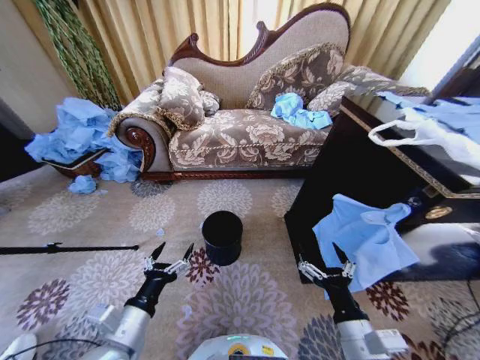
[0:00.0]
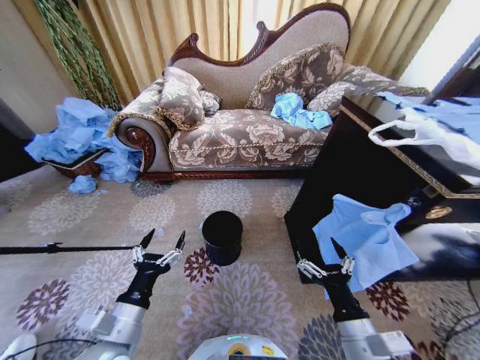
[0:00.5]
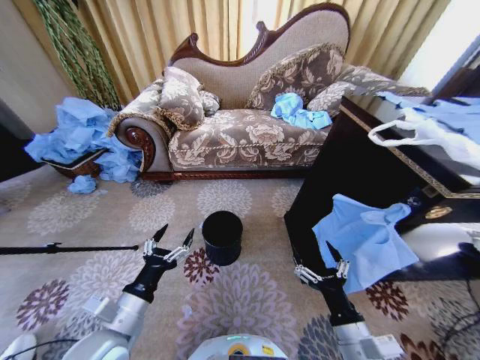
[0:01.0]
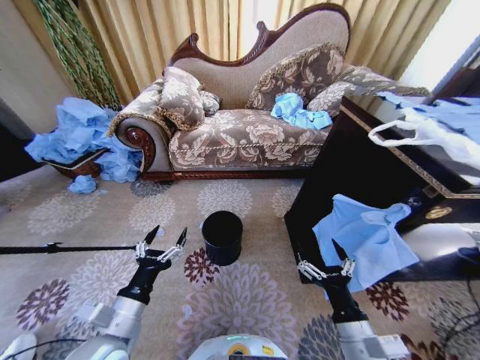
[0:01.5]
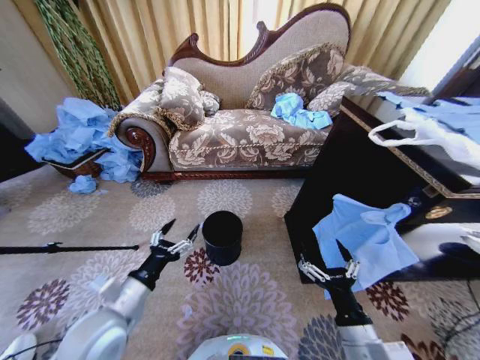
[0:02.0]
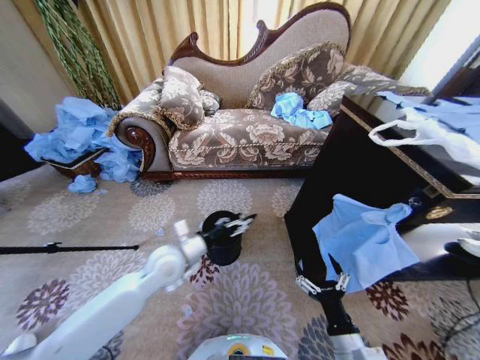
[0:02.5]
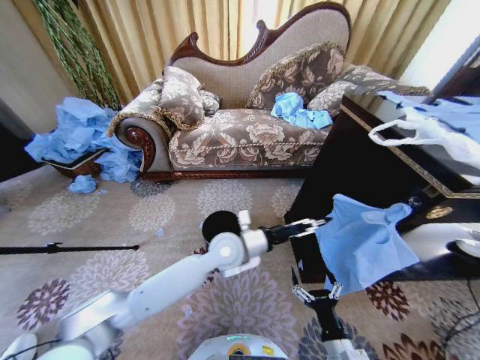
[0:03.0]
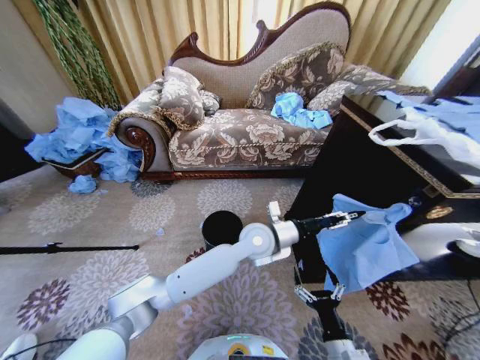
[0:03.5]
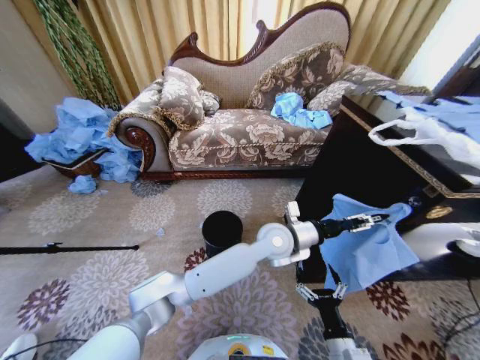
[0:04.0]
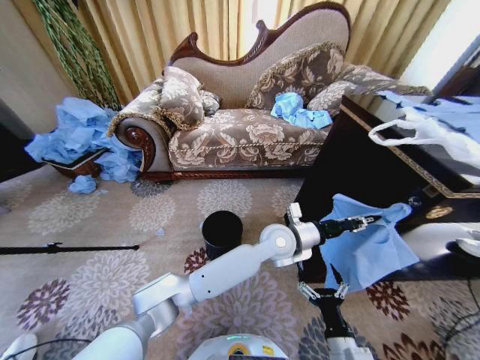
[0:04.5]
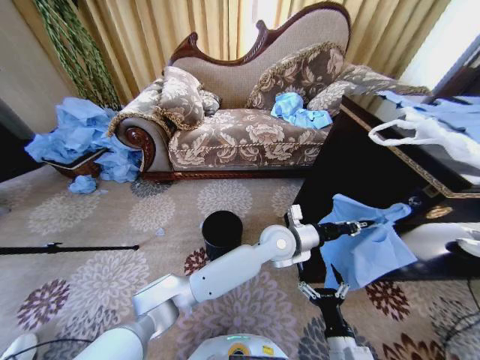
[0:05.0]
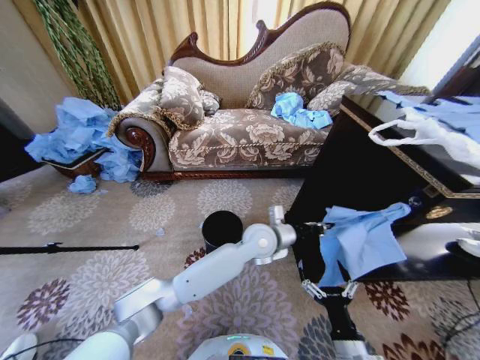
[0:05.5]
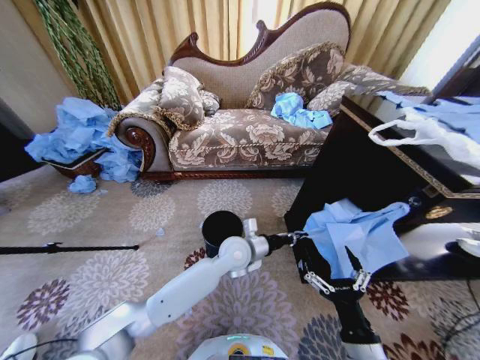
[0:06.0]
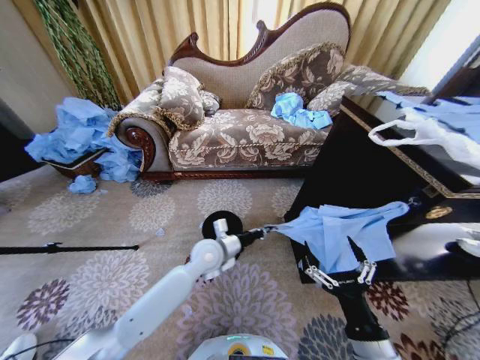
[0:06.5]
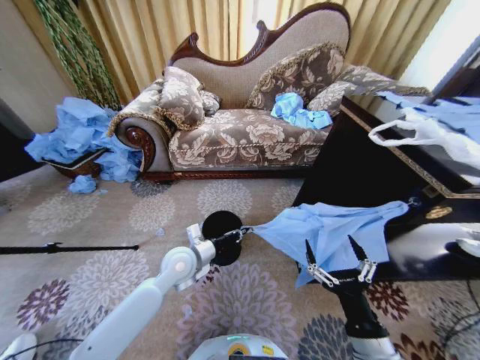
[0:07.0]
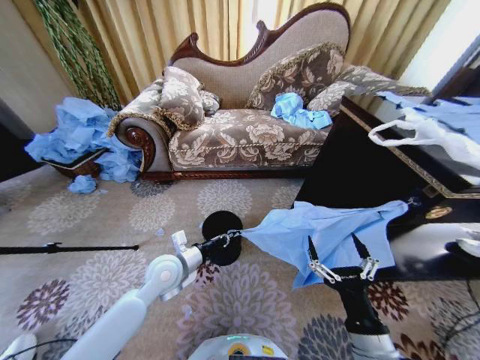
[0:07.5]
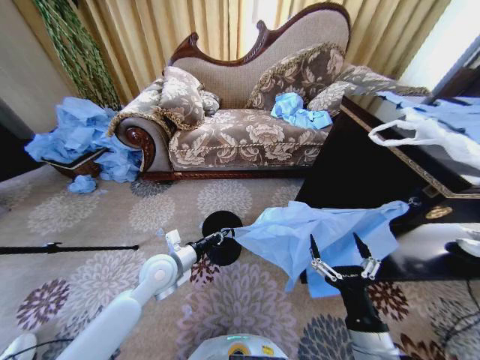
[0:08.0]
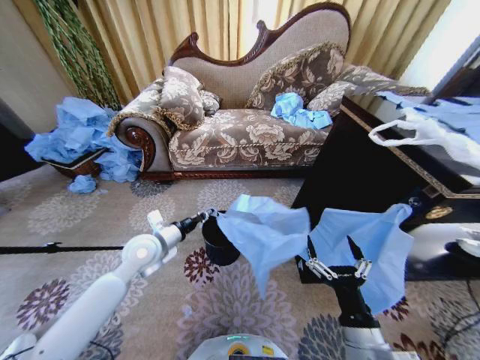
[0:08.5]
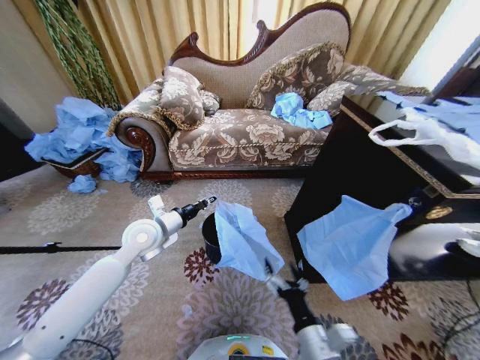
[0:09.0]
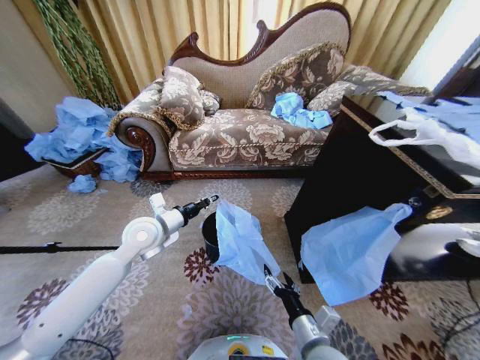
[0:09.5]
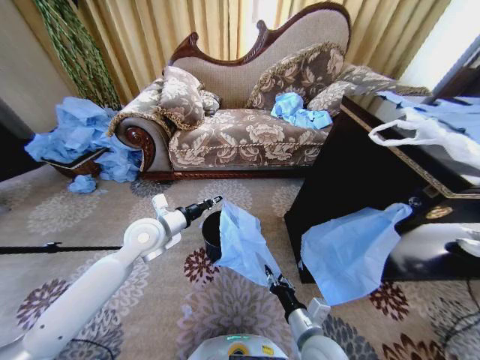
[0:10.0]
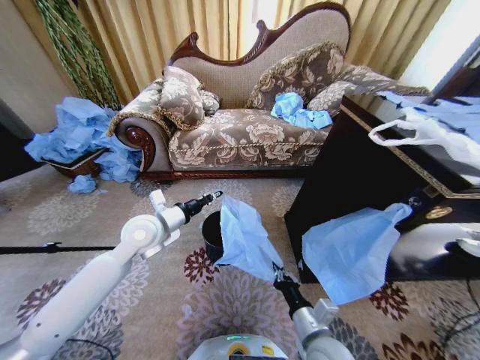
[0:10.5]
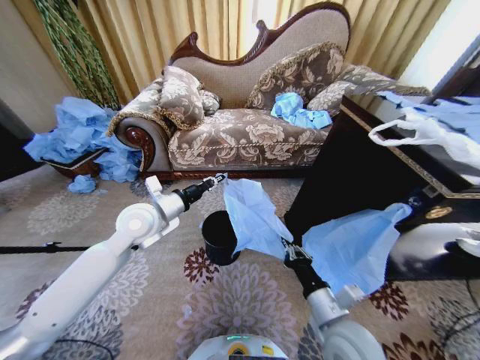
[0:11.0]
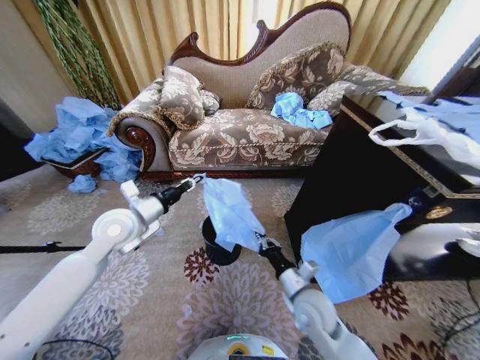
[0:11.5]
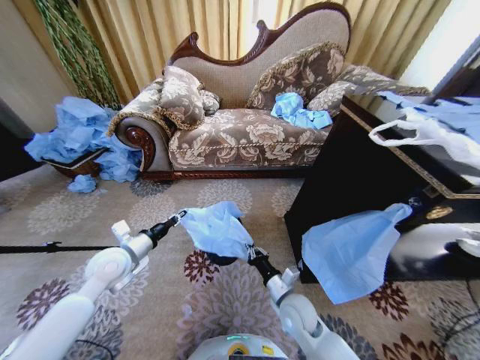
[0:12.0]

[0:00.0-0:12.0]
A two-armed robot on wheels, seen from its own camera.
Task of the whole recording: Place a garbage bag over the trash bin.
0:02.0 to 0:04.0: The right gripper goes roughly 10 cm downward. The left gripper travels to the right and forward by about 40 cm.
0:04.0 to 0:06.0: The left gripper is displaced to the left and downward by roughly 10 cm, and closes its fingers. The right gripper moves upward, about 10 cm.
0:06.0 to 0:08.0: The left gripper shifts about 20 cm to the left.
0:08.0 to 0:10.0: The left gripper shifts some 10 cm upward and forward; the right gripper is displaced downward, to the left and forward by some 10 cm, and closes up.
0:10.0 to 0:12.0: The right gripper travels forward by some 10 cm, reaches about 5 cm upward, then returns, and closes. Meanwhile the left gripper shifts roughly 10 cm to the left, backward and downward.

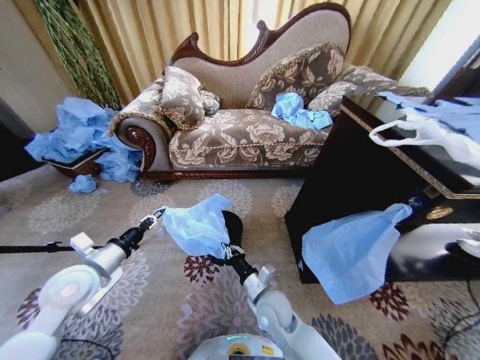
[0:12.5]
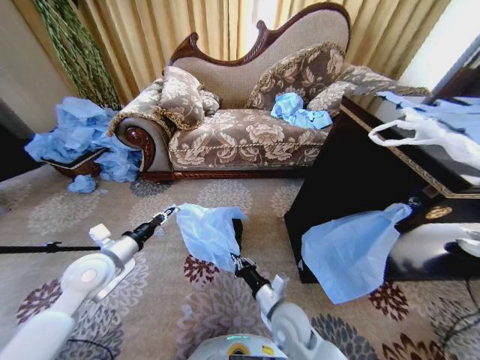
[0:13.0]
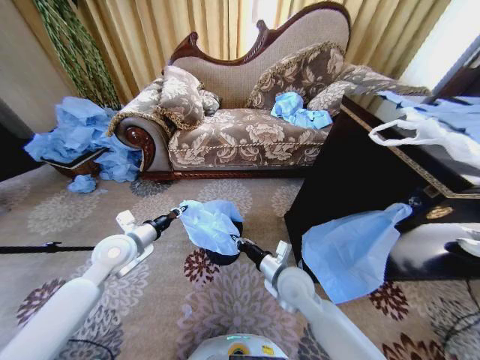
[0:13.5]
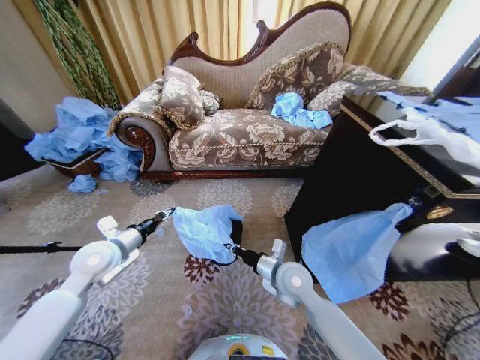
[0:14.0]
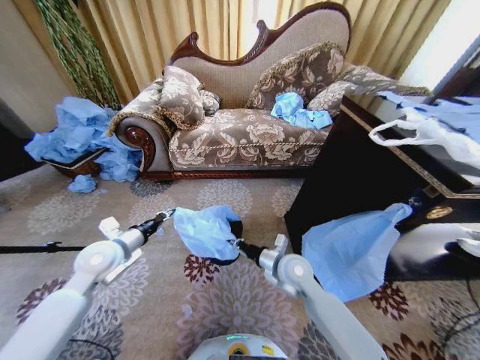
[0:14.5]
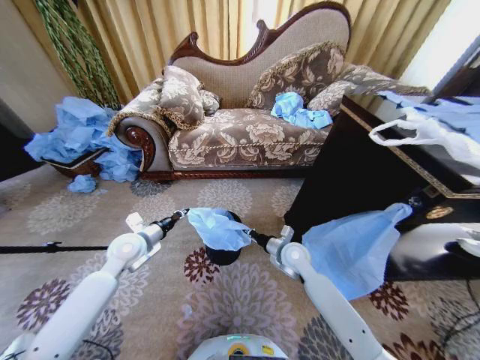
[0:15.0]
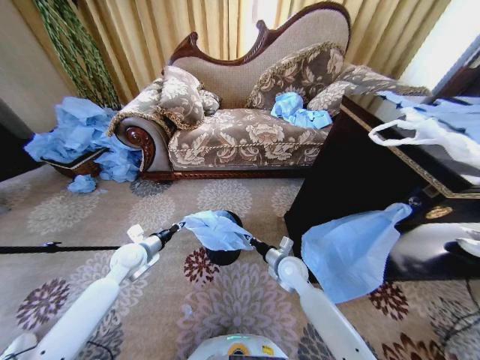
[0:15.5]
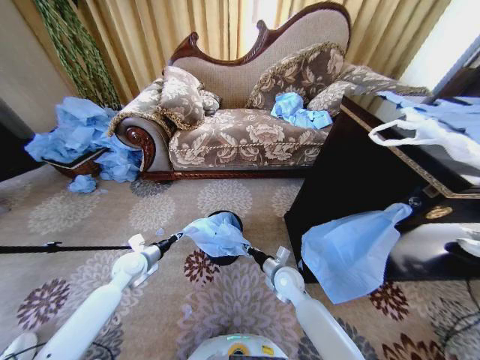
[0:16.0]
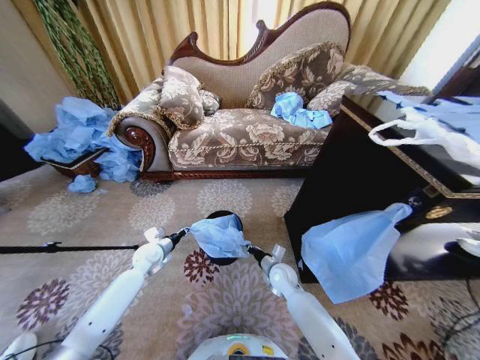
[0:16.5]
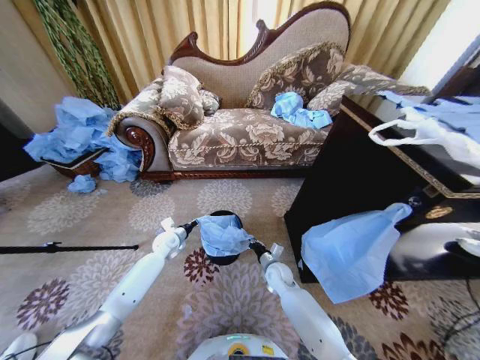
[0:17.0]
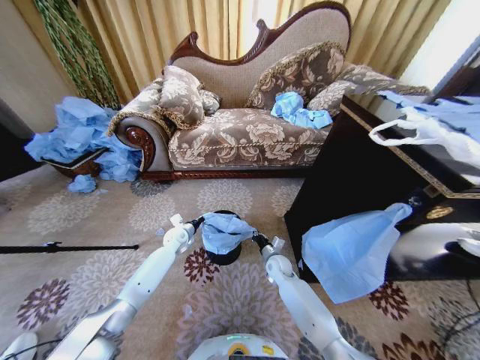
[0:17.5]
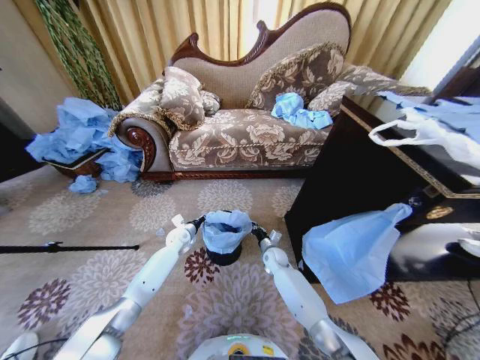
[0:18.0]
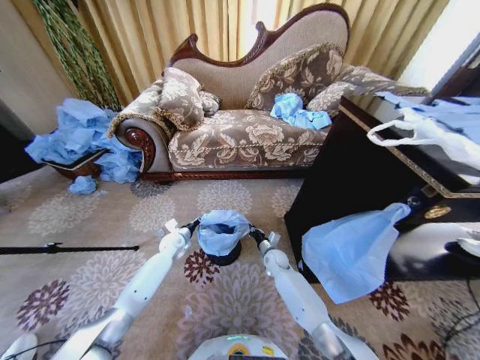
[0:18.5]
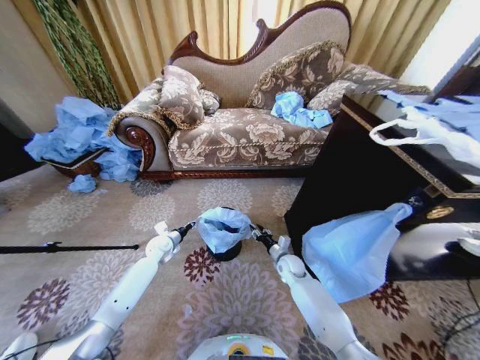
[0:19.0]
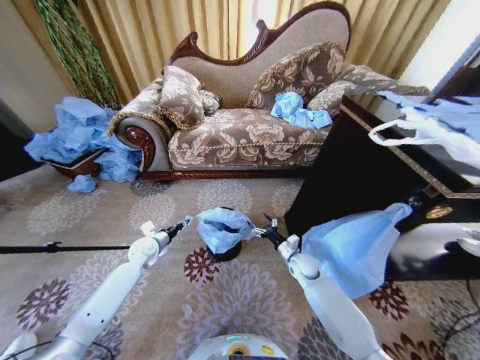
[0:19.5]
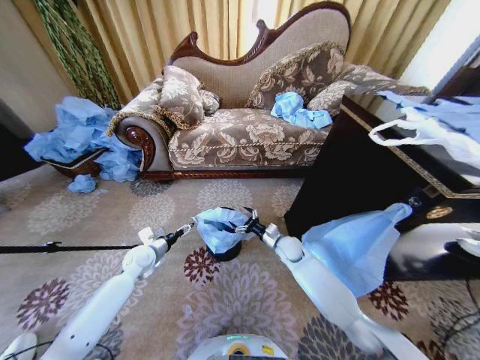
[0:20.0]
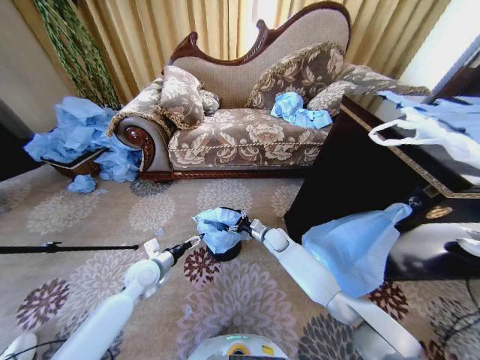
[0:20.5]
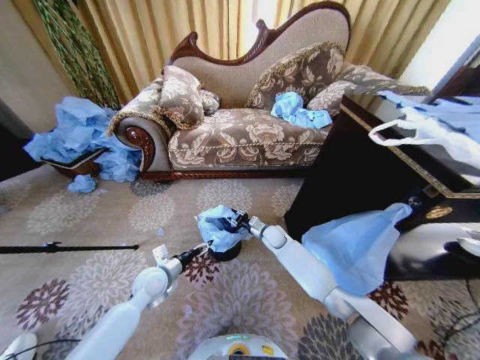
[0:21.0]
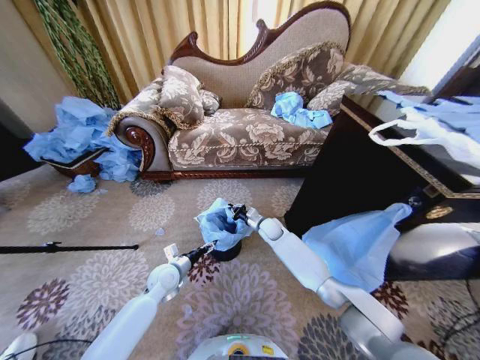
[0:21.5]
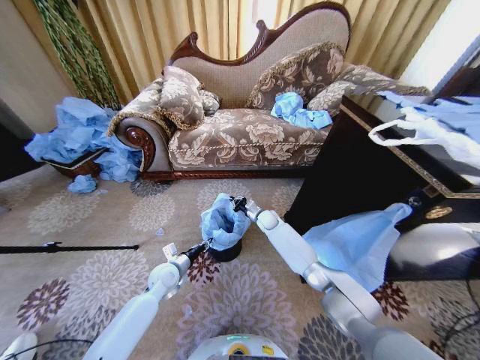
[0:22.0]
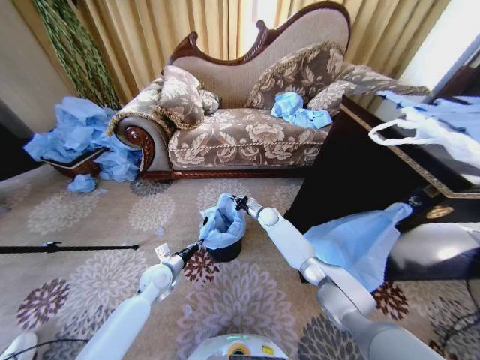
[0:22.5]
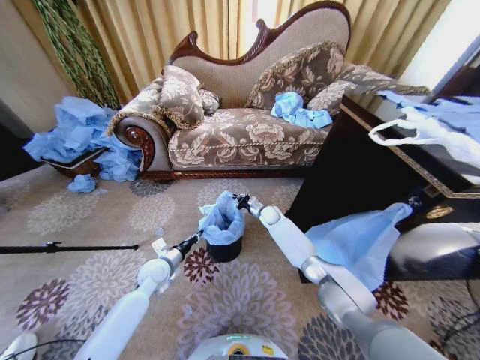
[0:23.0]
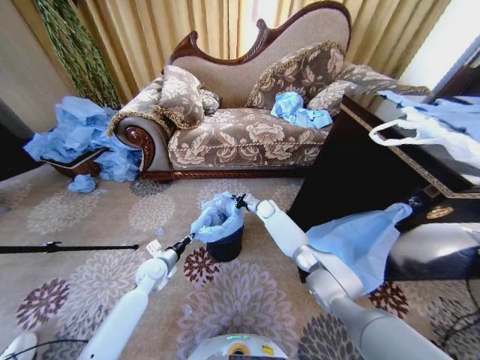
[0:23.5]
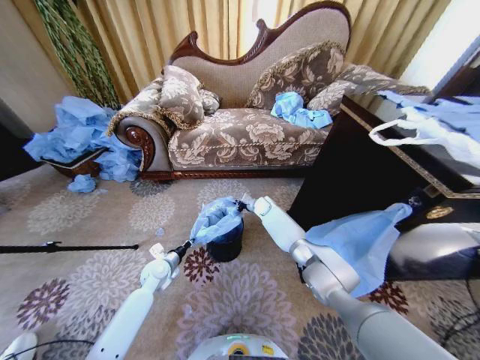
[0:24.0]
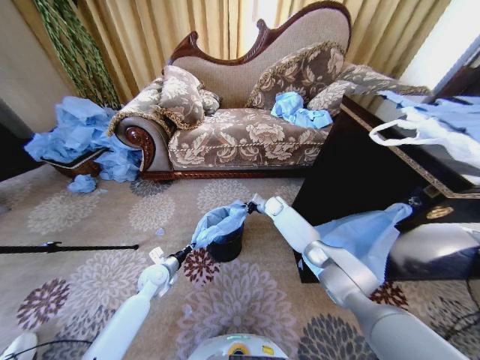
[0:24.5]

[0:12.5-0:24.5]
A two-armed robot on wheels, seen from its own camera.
Task of the whole recording: Place a garbage bag over the trash bin.
0:12.5 to 0:14.5: The right gripper heads forward, upward and to the right, covering roughly 10 cm. Meanwhile the left gripper shifts some 5 cm forward.
0:14.5 to 0:16.5: The left gripper goes approximately 20 cm downward and forward, while the right gripper travels downward by some 15 cm.
0:16.5 to 0:18.5: The two grippers go approximately 10 cm forward.
0:18.5 to 0:20.5: The left gripper shifts roughly 15 cm backward and upward, and opens. Meanwhile the right gripper goes roughly 10 cm upward, and opens up.
0:20.5 to 0:22.5: The right gripper is displaced forward by roughly 10 cm, and closes. Meanwhile the left gripper closes up.
0:22.5 to 0:24.5: The right gripper changes place by about 5 cm.

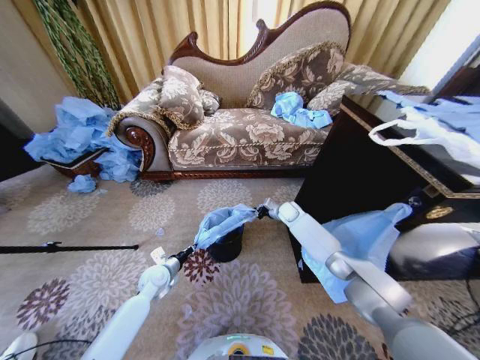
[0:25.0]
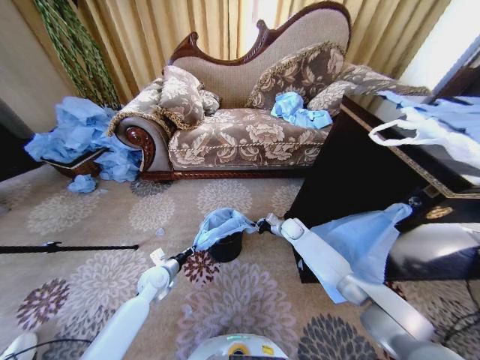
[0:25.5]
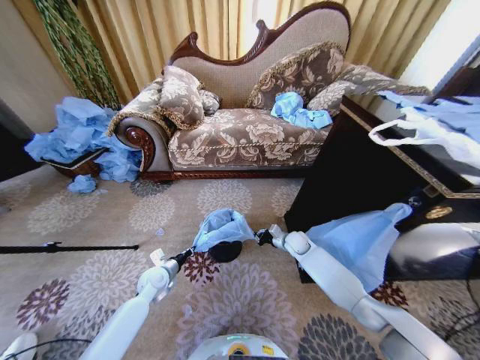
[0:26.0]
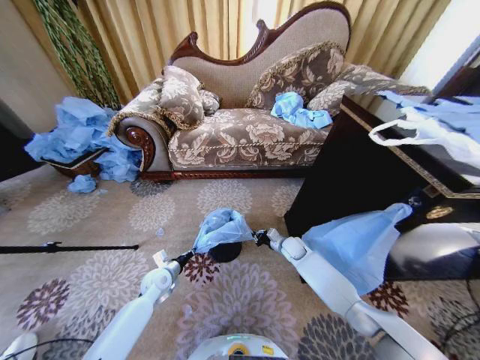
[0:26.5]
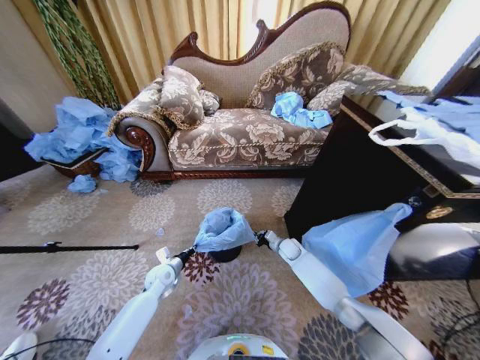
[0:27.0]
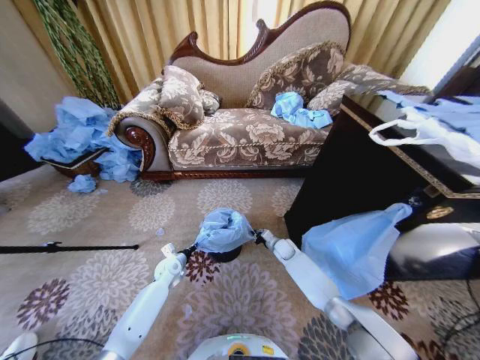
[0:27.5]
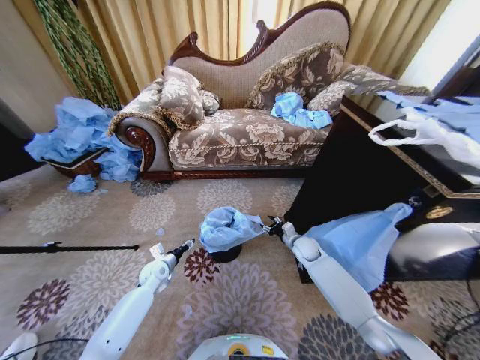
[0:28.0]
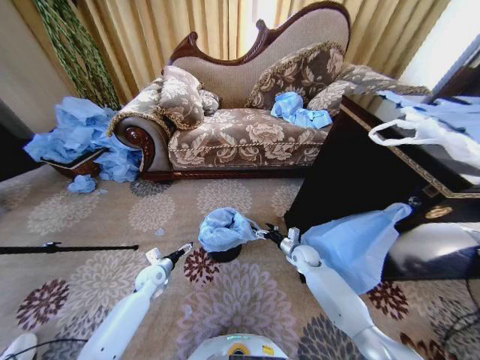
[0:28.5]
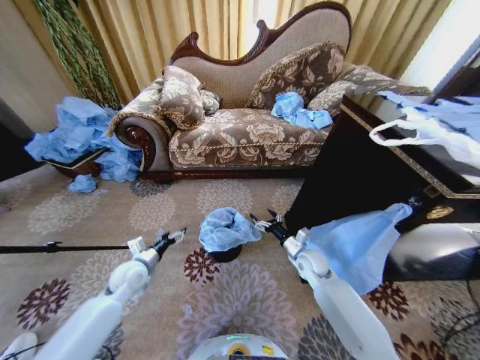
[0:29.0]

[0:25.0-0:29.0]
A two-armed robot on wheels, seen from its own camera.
Task of the whole recording: Place a garbage bag over the trash bin.
0:25.0 to 0:27.0: The right gripper moves downward and backward, approximately 15 cm.
0:27.0 to 0:29.0: The left gripper shifts some 10 cm upward and to the left, and opens its fingers. The right gripper heads backward and upward, covering roughly 15 cm, and opens.
